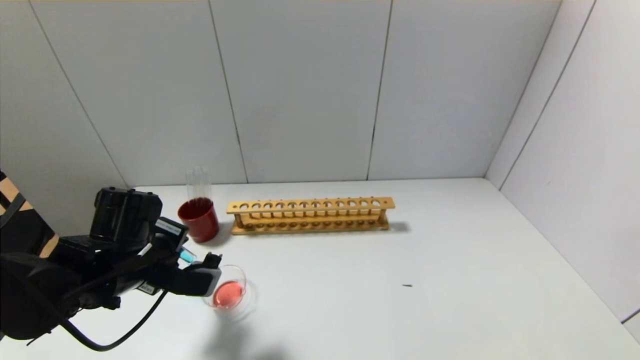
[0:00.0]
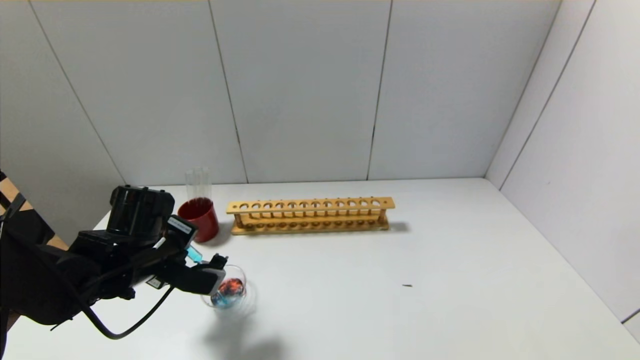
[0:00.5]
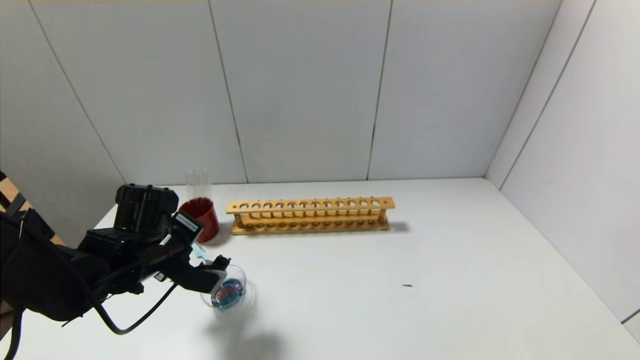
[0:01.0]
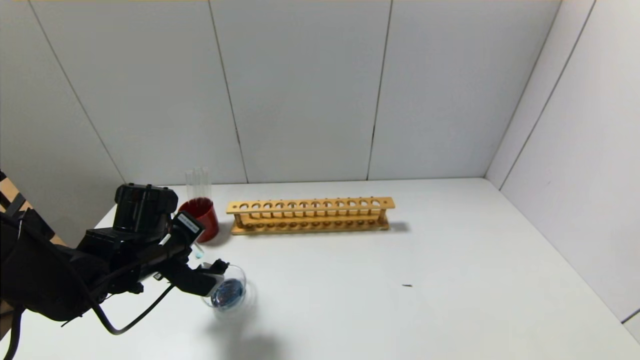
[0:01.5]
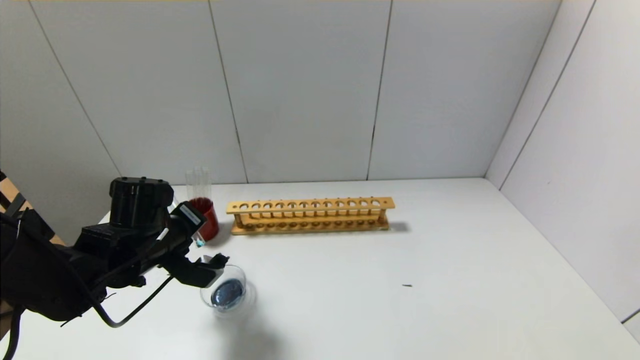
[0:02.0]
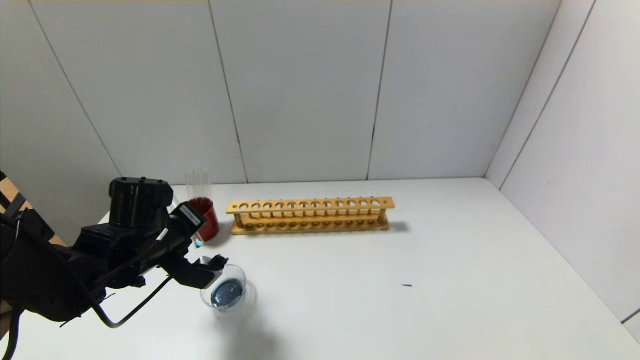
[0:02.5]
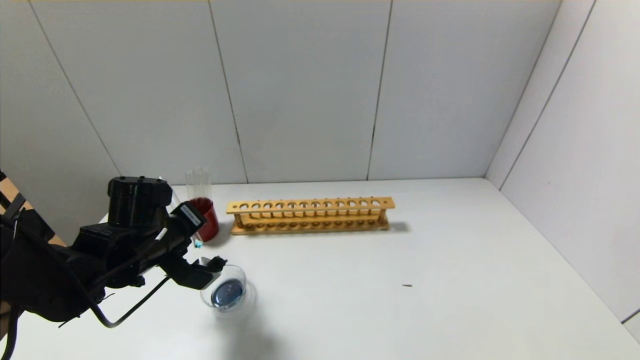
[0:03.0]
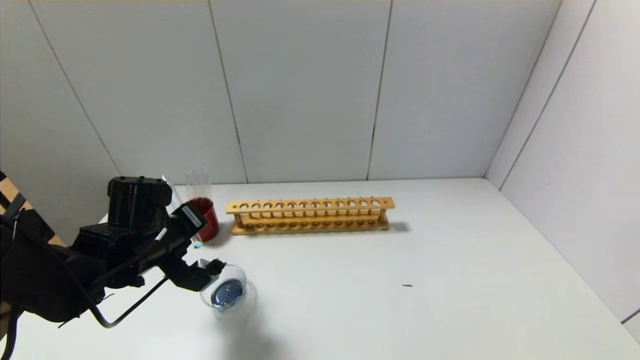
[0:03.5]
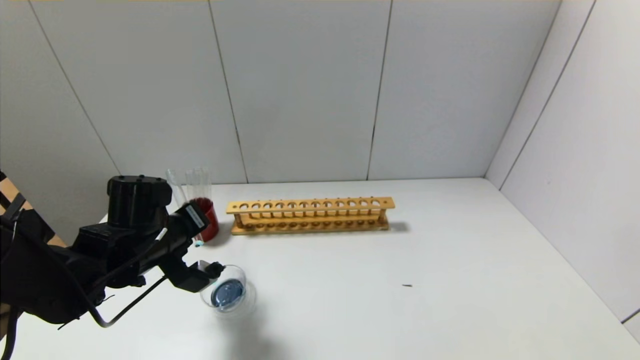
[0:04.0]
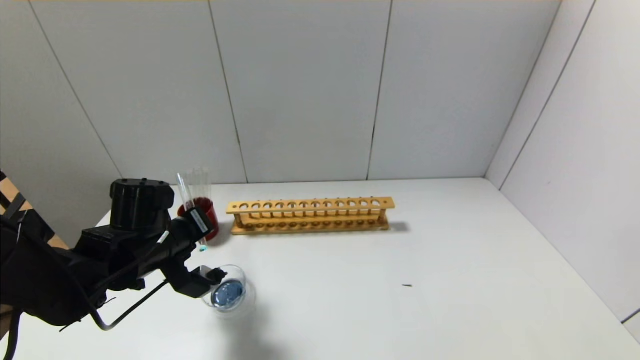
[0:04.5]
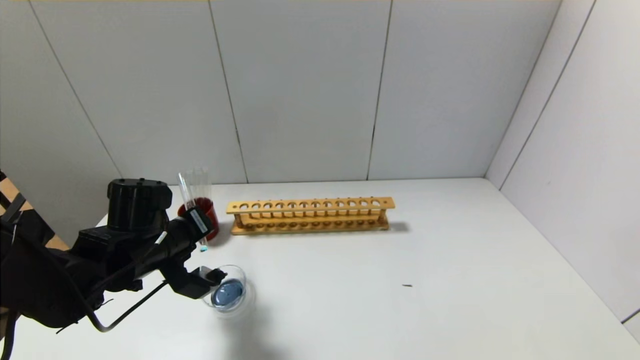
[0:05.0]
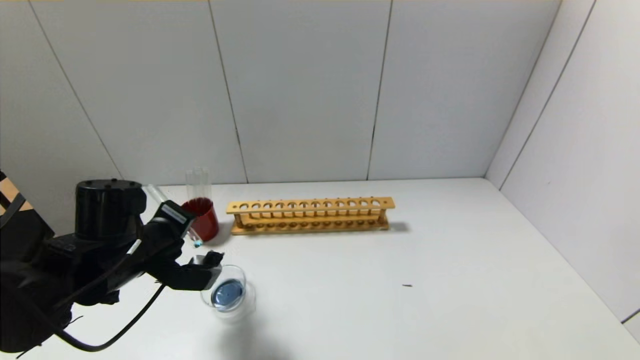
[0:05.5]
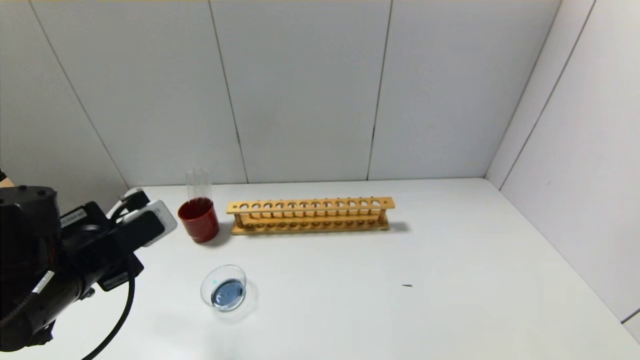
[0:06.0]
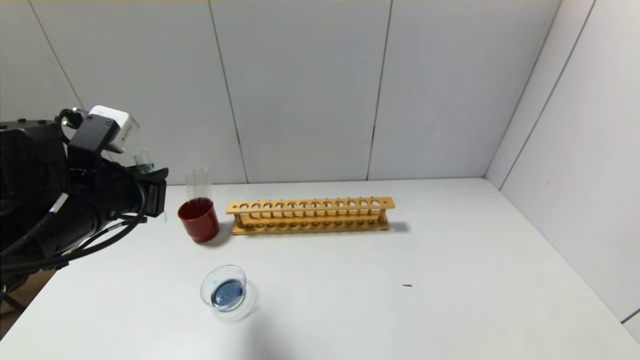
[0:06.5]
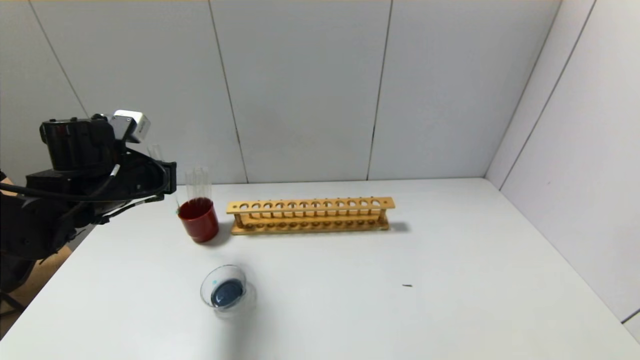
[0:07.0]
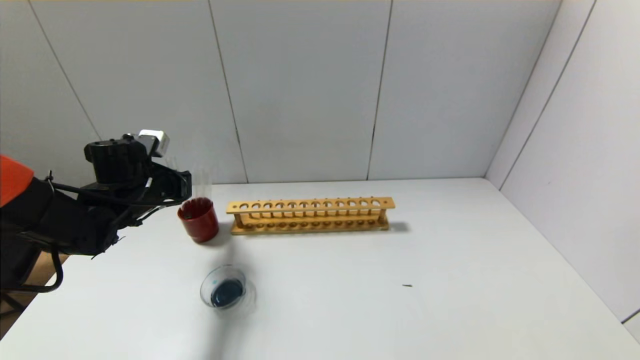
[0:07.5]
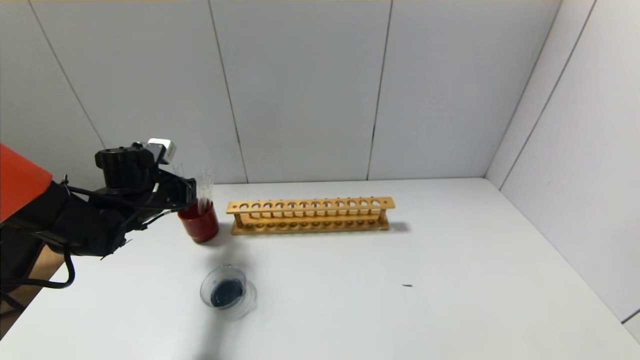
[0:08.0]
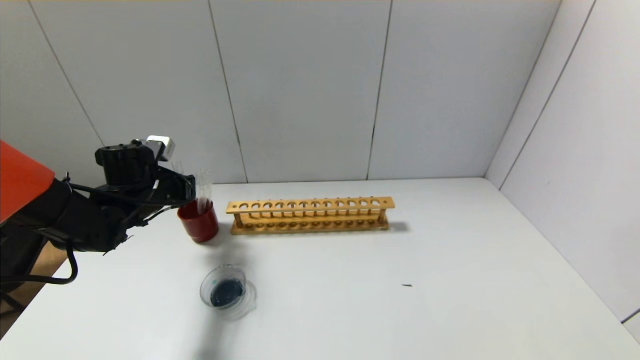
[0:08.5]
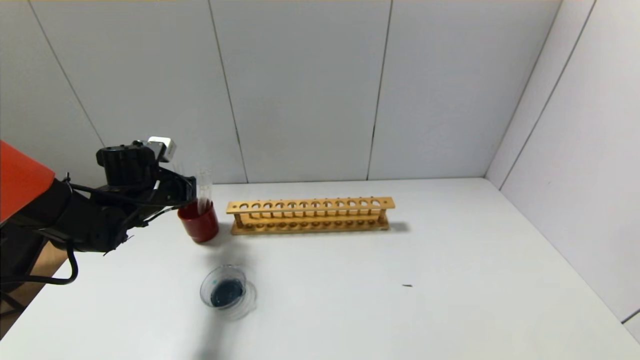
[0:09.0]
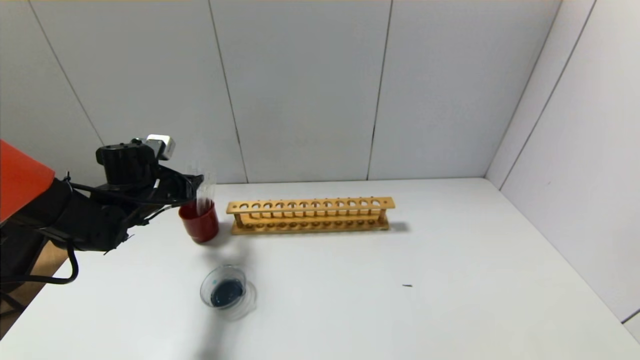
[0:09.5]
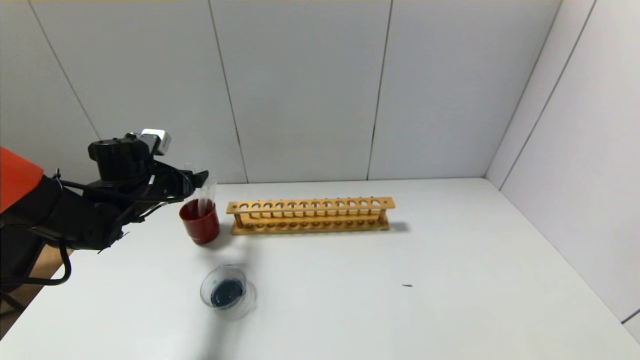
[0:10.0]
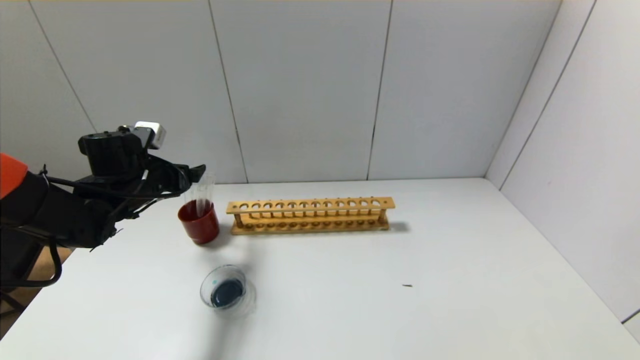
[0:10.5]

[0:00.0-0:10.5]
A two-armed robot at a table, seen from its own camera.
Step, 0:00.0 to 0:05.5: Pour the blue reagent into the graduated cylinder with the left gripper.
Step, 0:06.0 to 0:09.0: Place the test tube into the brown cup with the left gripper.
0:02.0 to 0:04.0: The grippers move only a little.
0:04.0 to 0:06.5: The left gripper travels upward by about 10 cm.
0:06.5 to 0:08.5: The left gripper travels forward and downward by approximately 15 cm.
0:08.5 to 0:10.5: The left gripper opens its fingers.

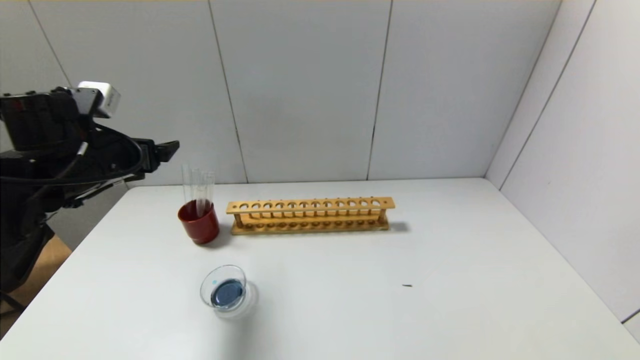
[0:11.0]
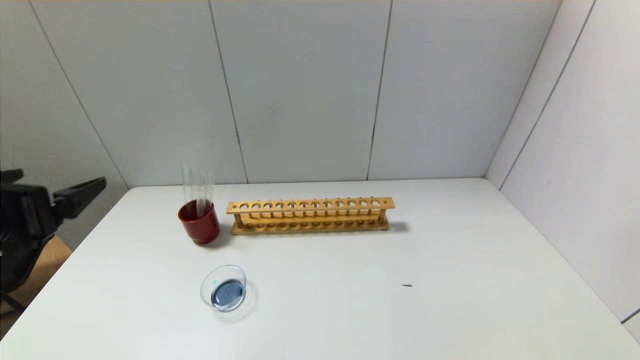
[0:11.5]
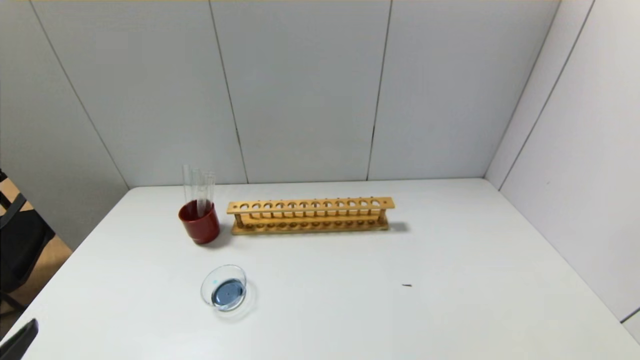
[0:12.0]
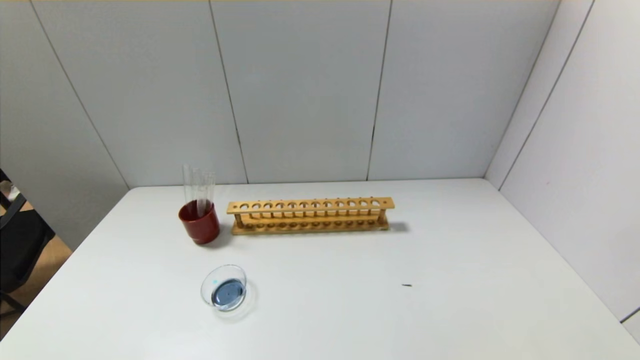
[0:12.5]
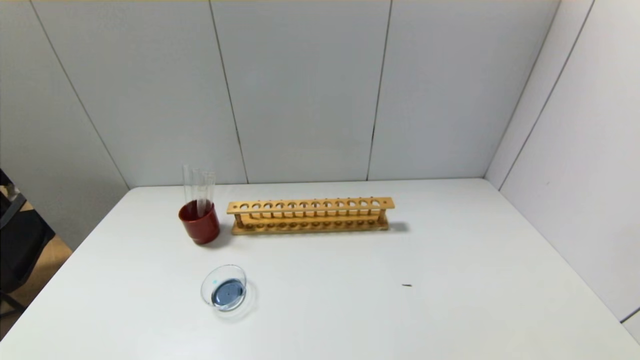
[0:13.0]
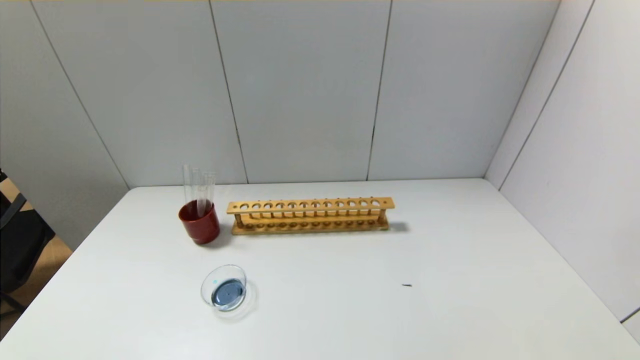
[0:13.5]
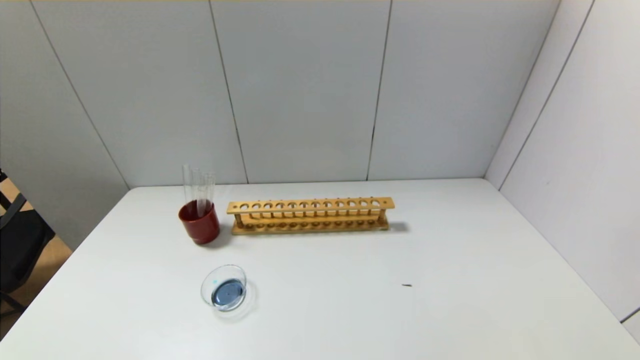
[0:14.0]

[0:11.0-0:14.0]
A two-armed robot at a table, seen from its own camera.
0:11.0 to 0:12.5: The left gripper moves backward, some 35 cm.
